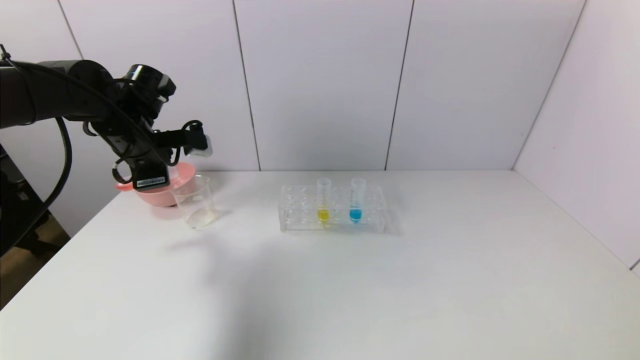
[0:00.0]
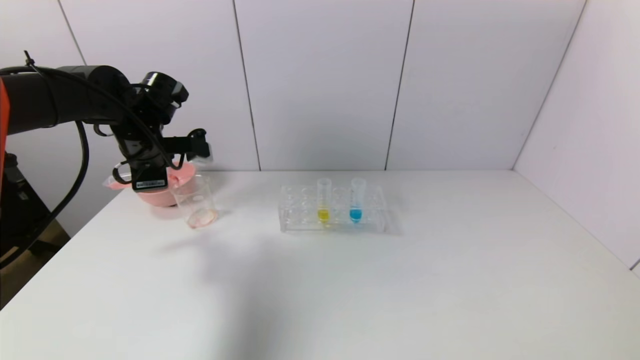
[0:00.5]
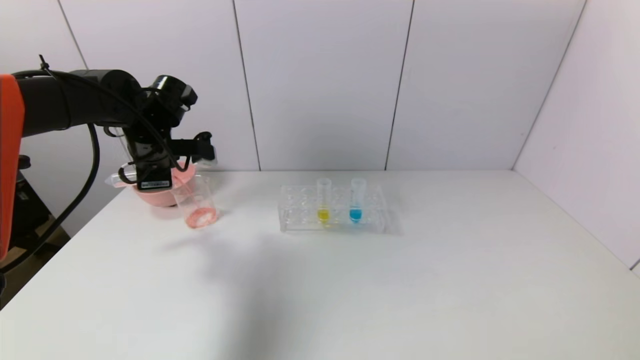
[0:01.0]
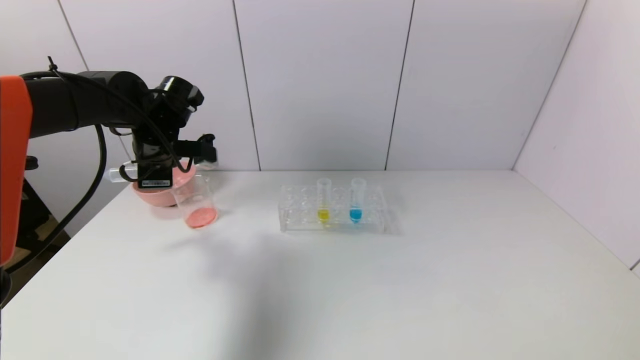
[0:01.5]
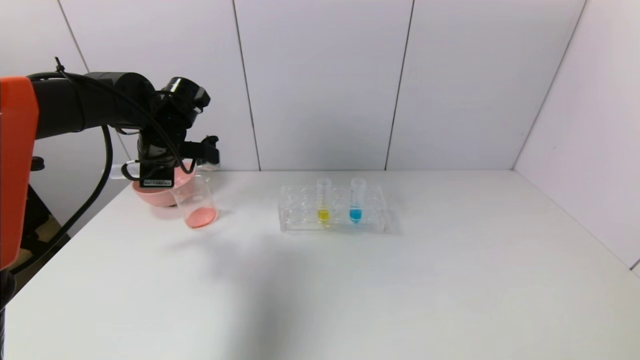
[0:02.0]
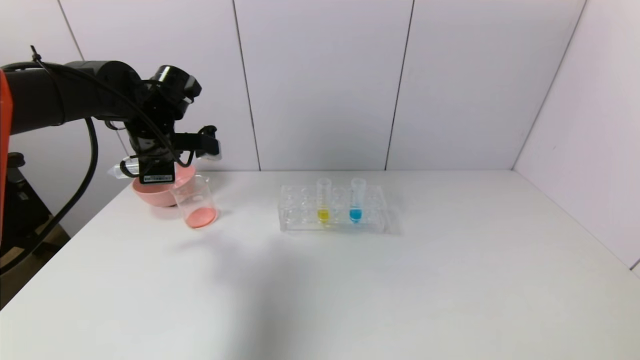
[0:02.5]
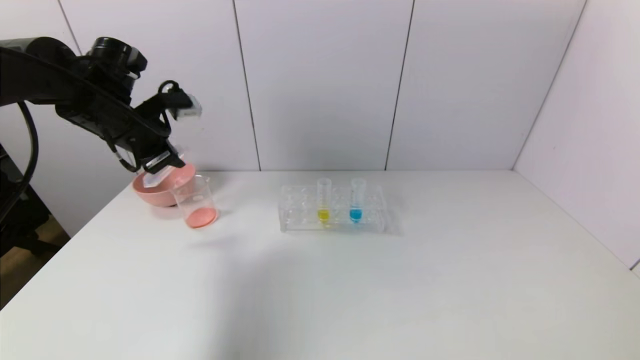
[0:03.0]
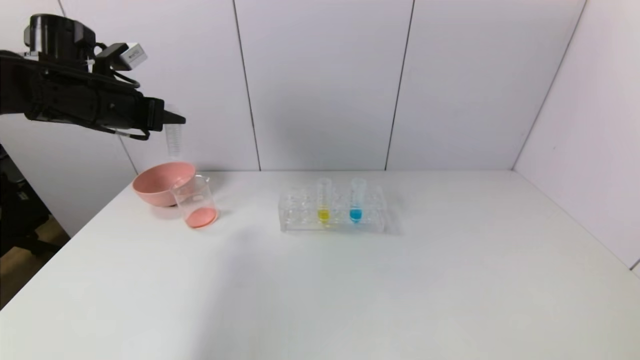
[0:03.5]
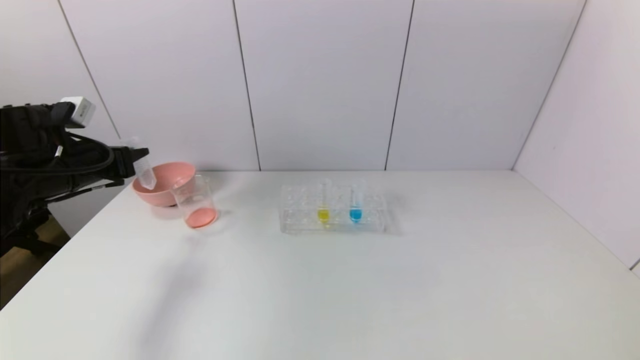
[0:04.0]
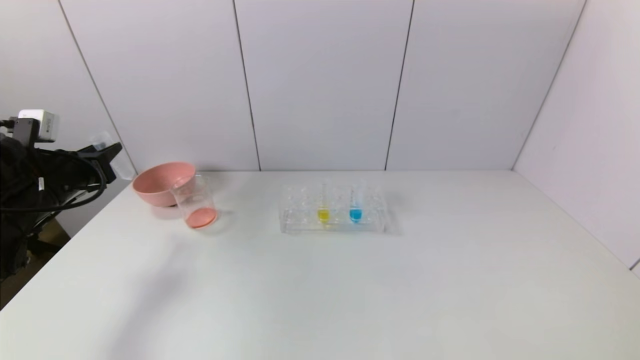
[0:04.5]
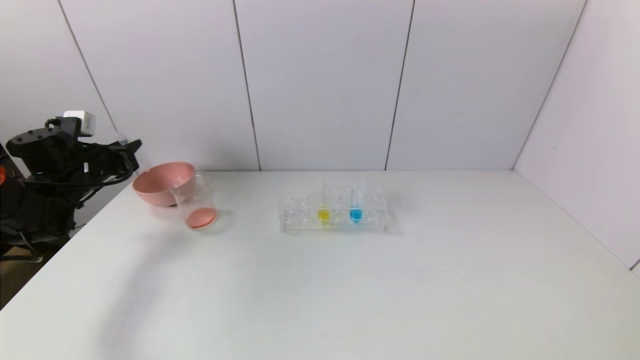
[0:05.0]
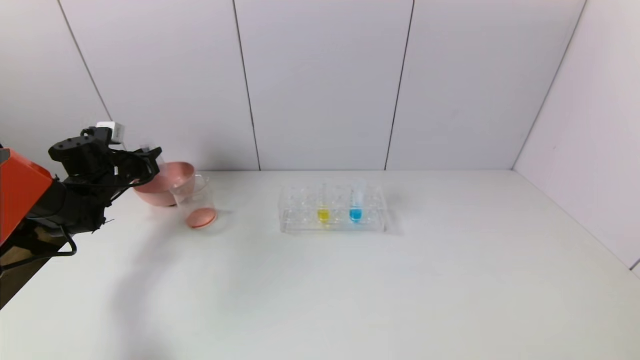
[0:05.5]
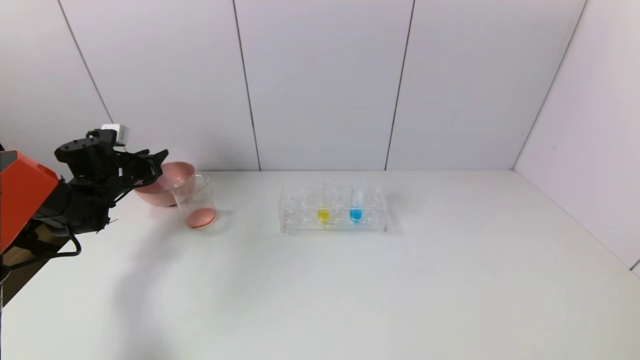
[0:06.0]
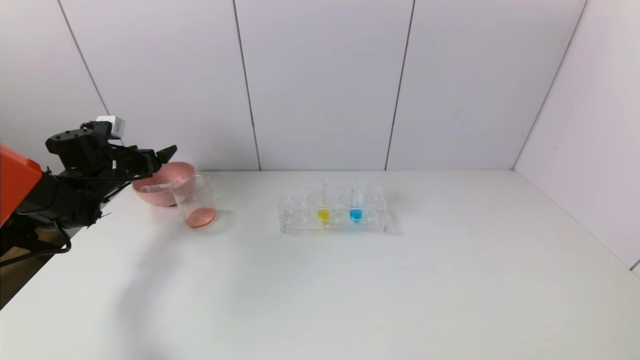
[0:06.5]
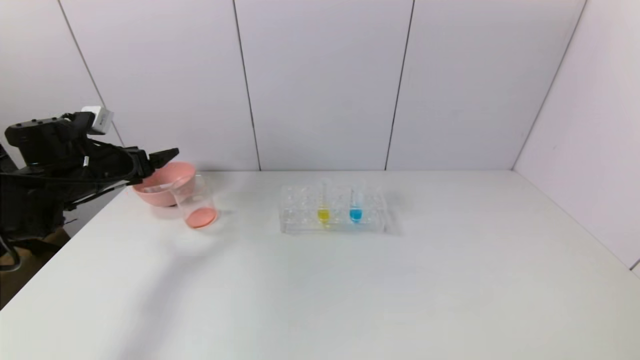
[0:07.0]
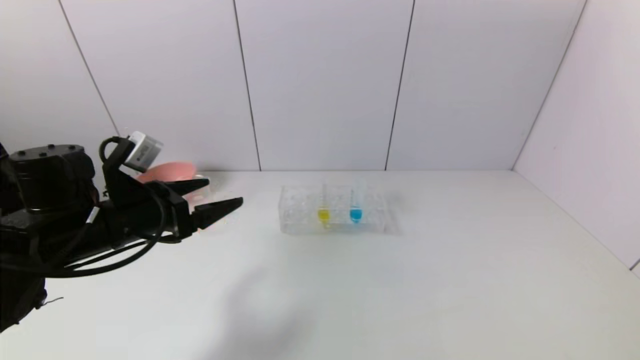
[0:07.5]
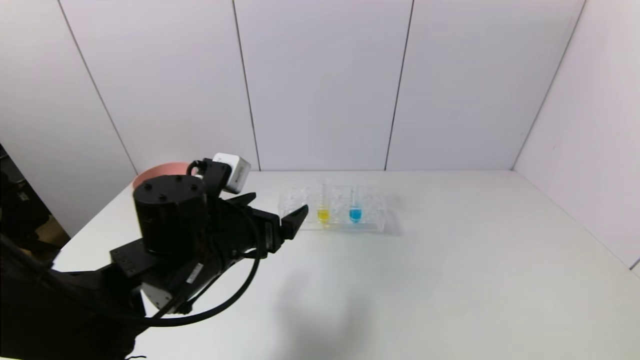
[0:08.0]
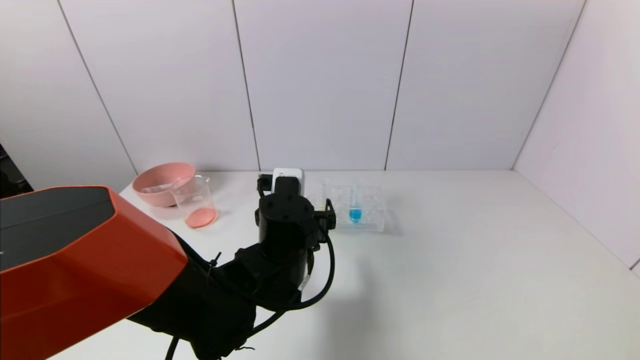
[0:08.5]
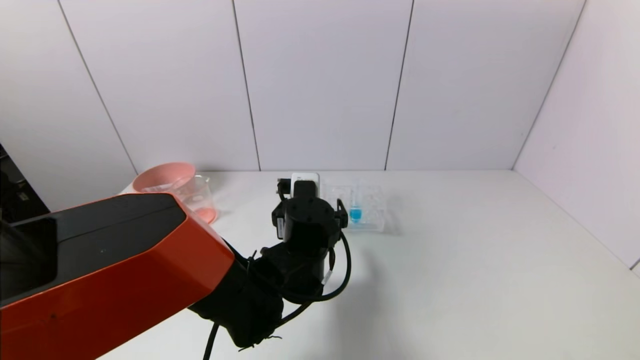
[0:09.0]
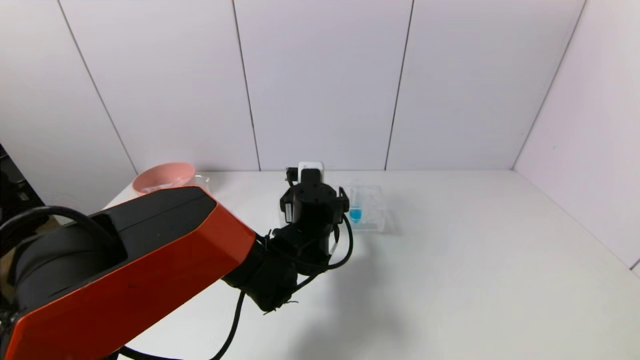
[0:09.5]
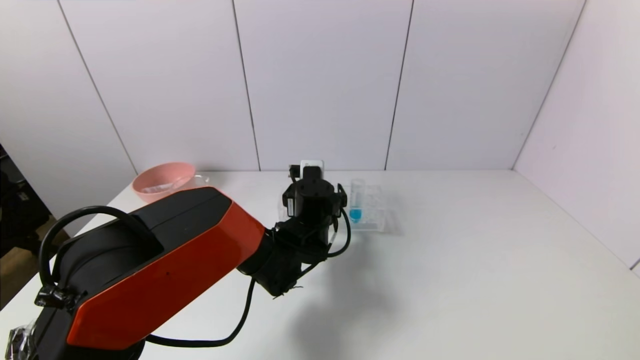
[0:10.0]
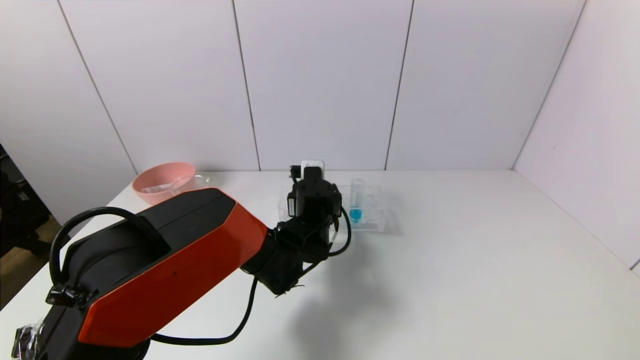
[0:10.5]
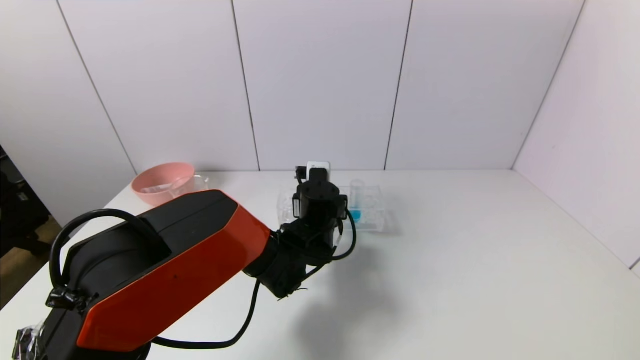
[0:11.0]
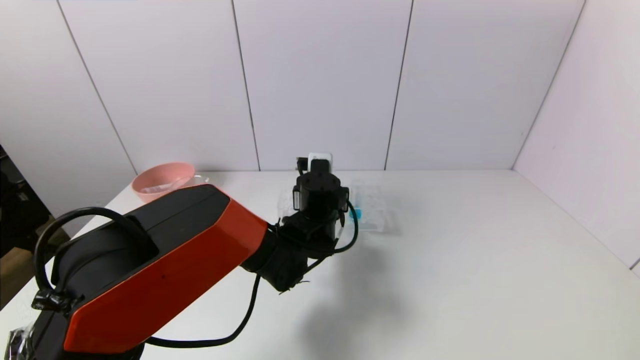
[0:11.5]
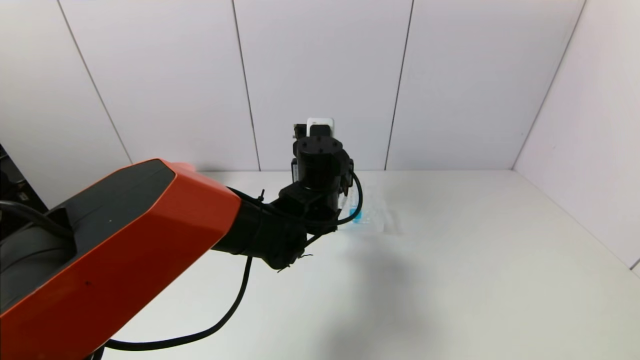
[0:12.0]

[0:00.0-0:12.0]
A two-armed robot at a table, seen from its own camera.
Task of the whole recording: pick up the test tube with yellow pigment and the test tube with red pigment by grippers and pour them into the beaker.
Step, 0:00.0 to 0:02.0: Pour the red reagent into the graduated cylinder with the left gripper.
Step, 0:02.5 to 0:06.0: Place the test tube into the pink bowl with the left gripper.
Step, 0:06.5 to 0:11.0: Grasp the yellow reagent with the left gripper.
0:02.0 to 0:04.0: The left gripper goes approximately 15 cm to the left and backward.
0:04.0 to 0:06.0: The left gripper is displaced forward and downward by about 15 cm.
0:06.0 to 0:08.0: The left gripper is displaced to the right and backward by approximately 35 cm, and opens.
0:08.0 to 0:10.0: The left gripper moves forward, to the right and downward, some 20 cm.
0:10.0 to 0:12.0: The left gripper travels upward by approximately 10 cm, and closes up.

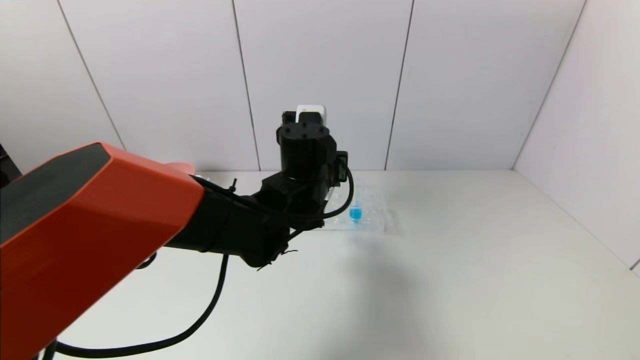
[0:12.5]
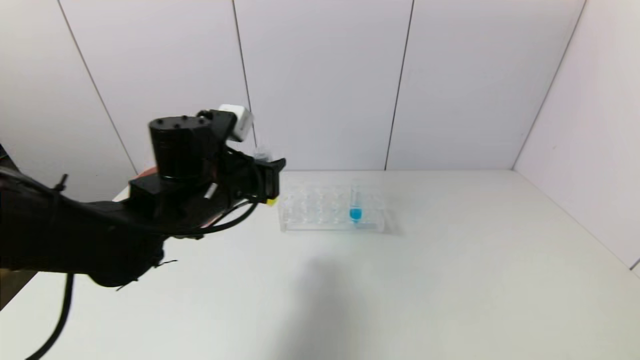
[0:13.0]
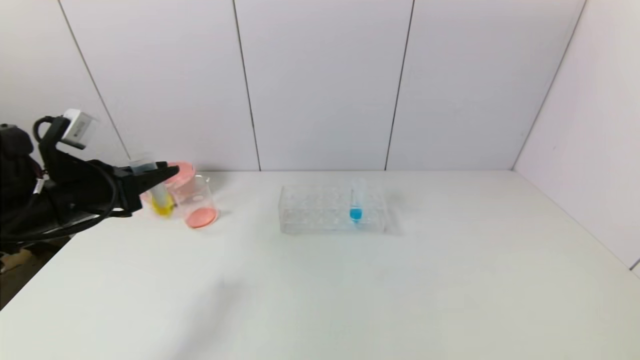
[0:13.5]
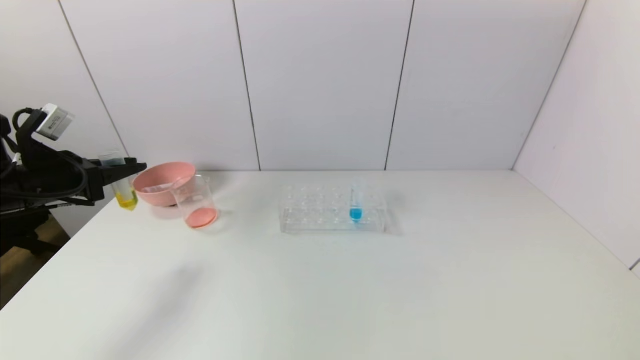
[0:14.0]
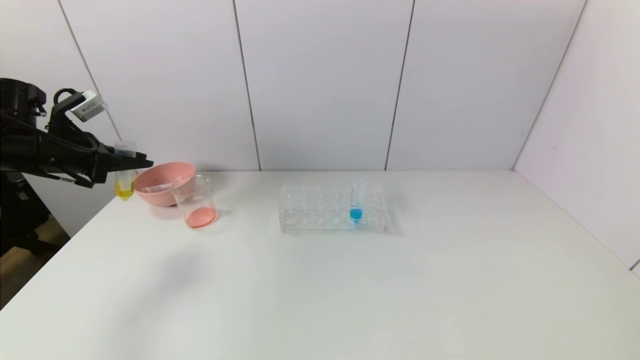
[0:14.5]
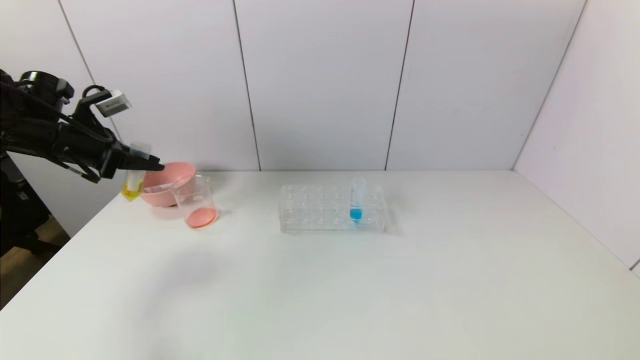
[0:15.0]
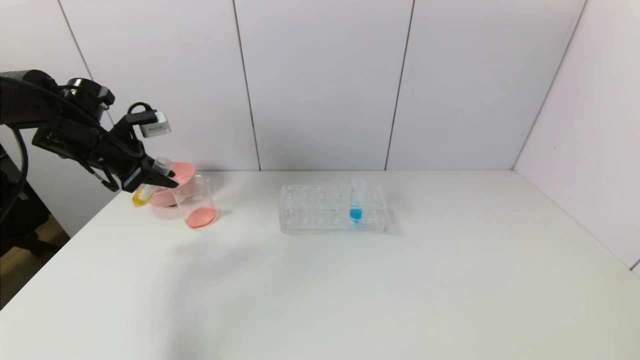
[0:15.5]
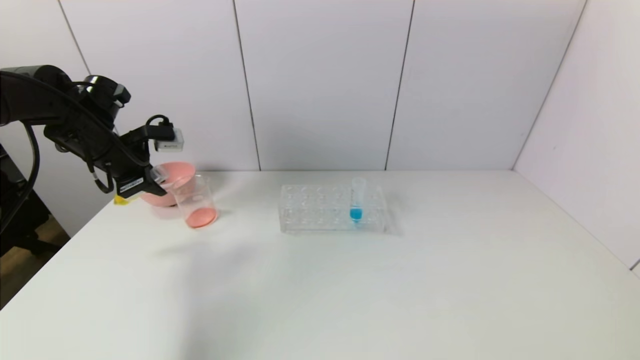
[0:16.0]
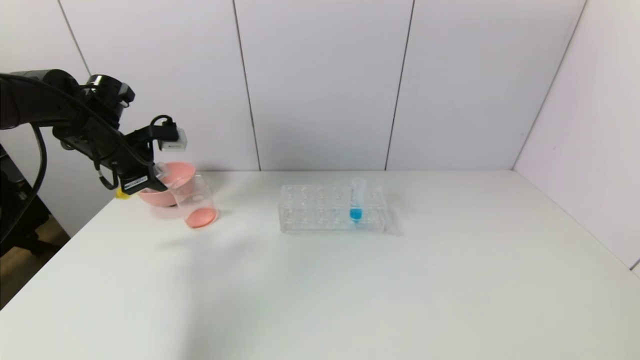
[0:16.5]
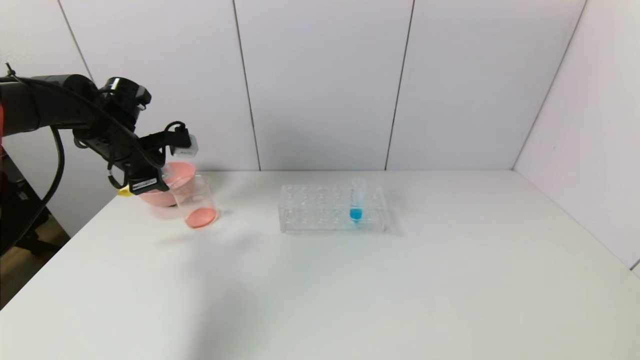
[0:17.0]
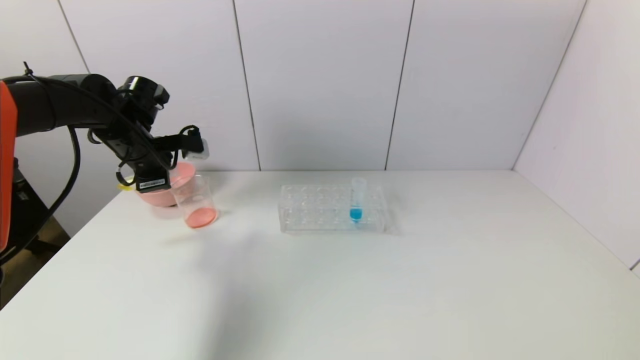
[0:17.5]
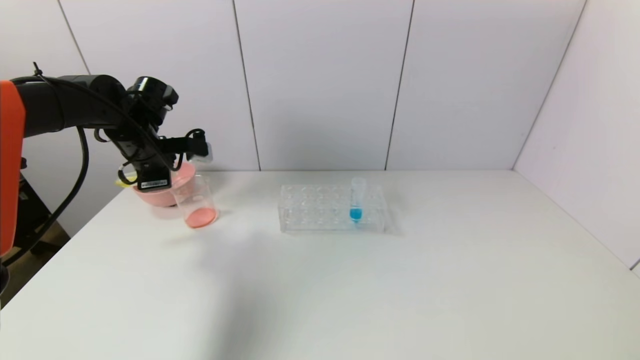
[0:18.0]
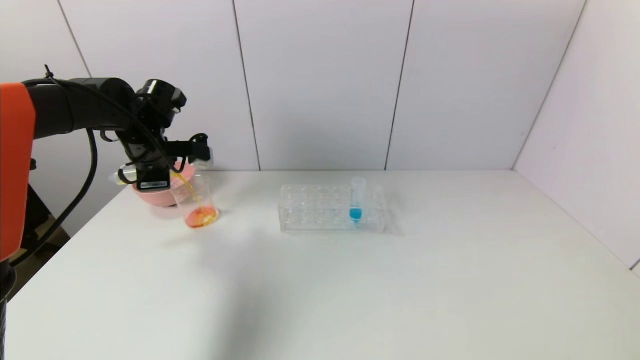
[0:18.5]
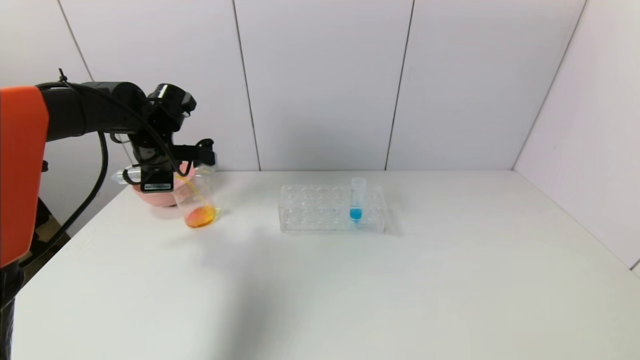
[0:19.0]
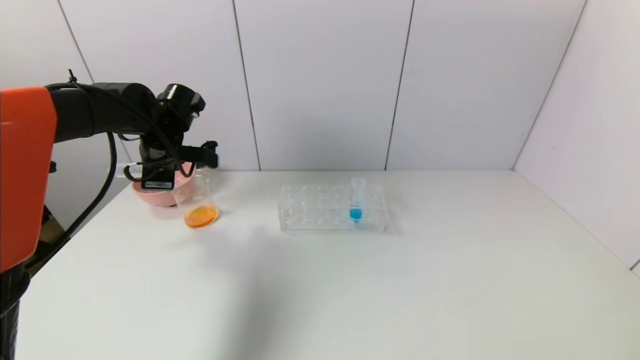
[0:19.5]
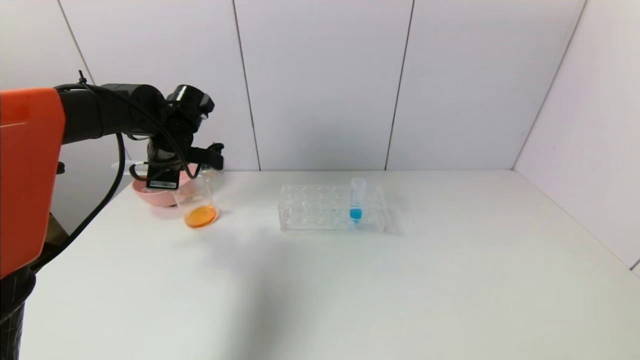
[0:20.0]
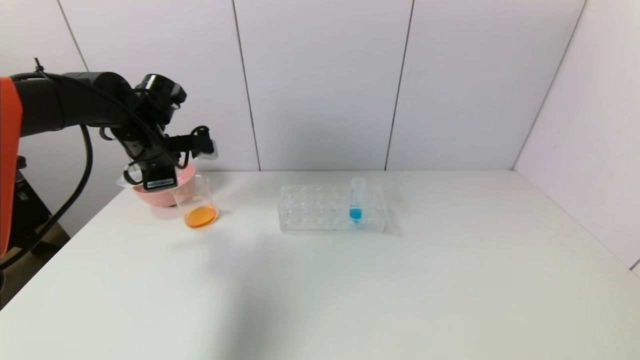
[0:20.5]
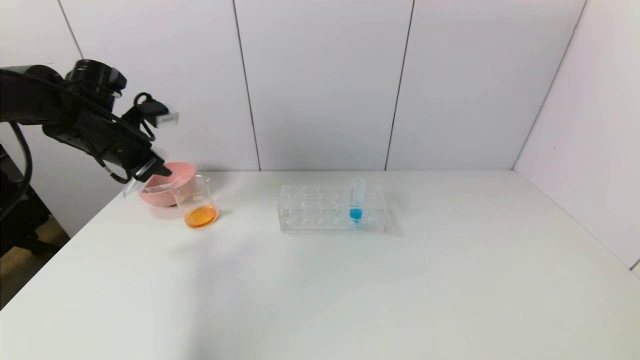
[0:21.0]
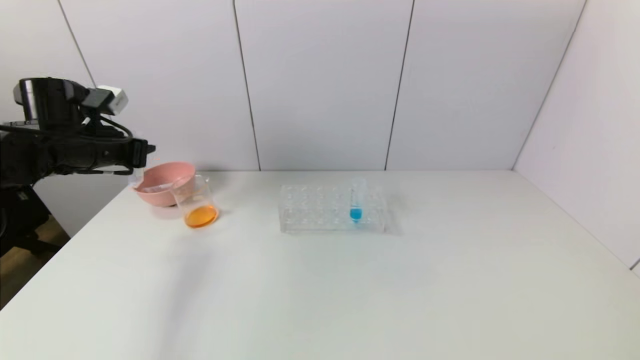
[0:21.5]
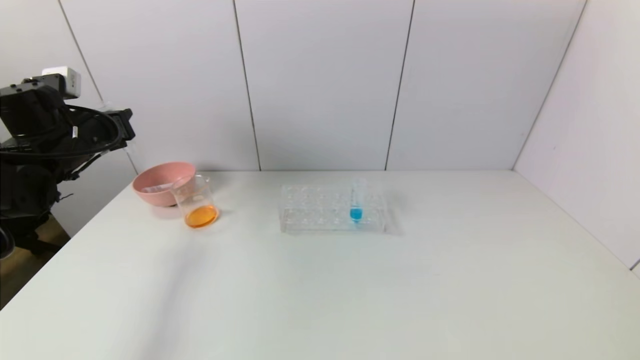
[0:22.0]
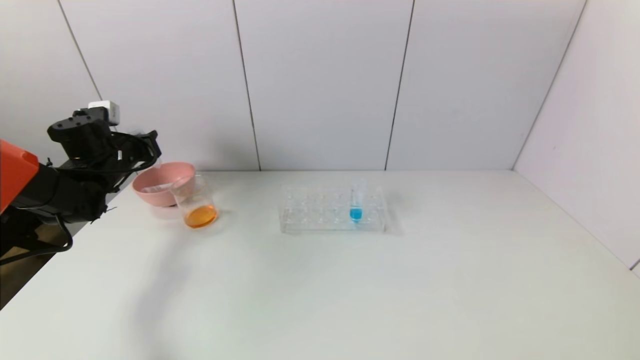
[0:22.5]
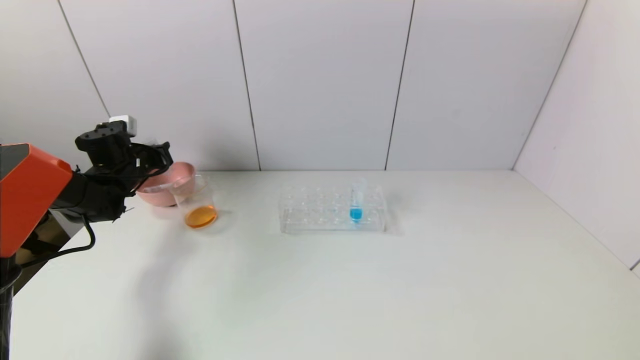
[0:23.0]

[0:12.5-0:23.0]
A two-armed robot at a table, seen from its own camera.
Task of the whole recording: pick up the test tube with yellow pigment and the test tube with red pigment by grippers and pour them into the beaker.
Step, 0:12.5 to 0:20.0: Pour the yellow reagent into the graduated cylinder with the left gripper.
0:12.5 to 0:14.5: The left gripper shifts about 40 cm to the left.
0:14.5 to 0:16.5: The left gripper heads to the right, covering about 5 cm.
0:16.5 to 0:19.0: The left gripper shifts approximately 5 cm to the right.
0:19.0 to 0:21.0: The left gripper heads to the left, covering about 5 cm.
0:21.0 to 0:23.0: The left gripper travels downward, forward and to the left by some 15 cm.
